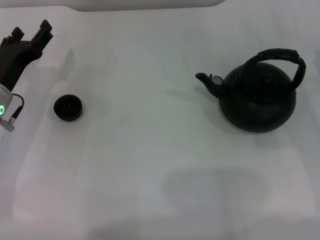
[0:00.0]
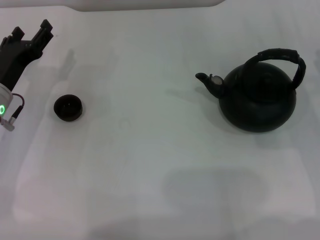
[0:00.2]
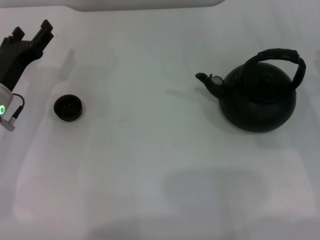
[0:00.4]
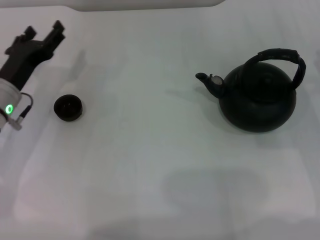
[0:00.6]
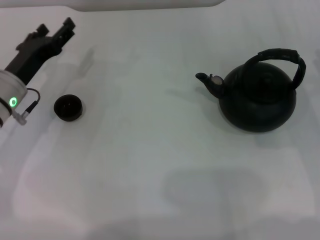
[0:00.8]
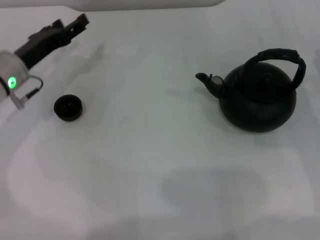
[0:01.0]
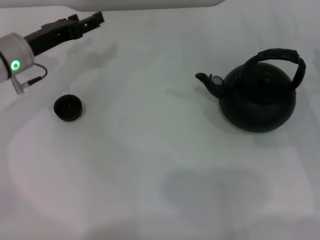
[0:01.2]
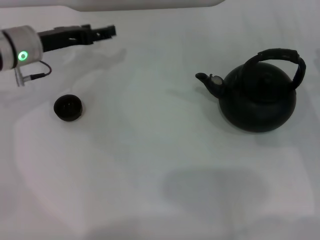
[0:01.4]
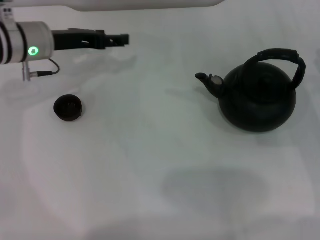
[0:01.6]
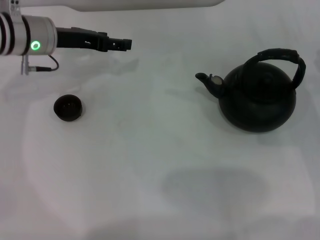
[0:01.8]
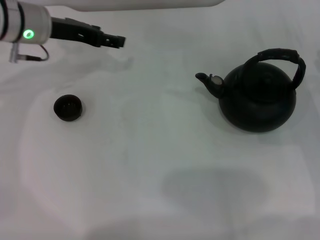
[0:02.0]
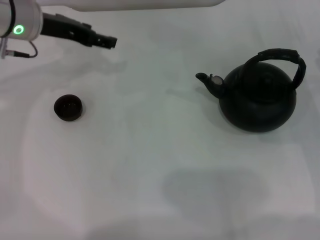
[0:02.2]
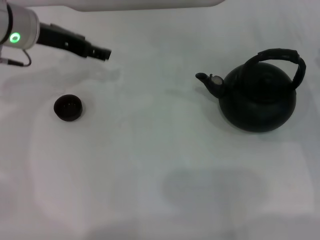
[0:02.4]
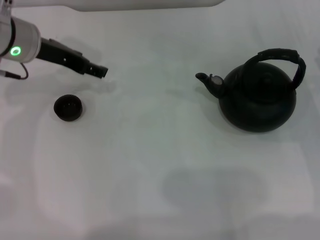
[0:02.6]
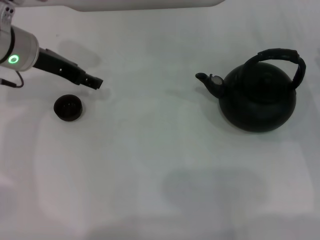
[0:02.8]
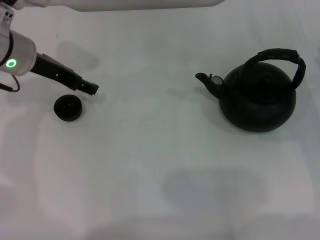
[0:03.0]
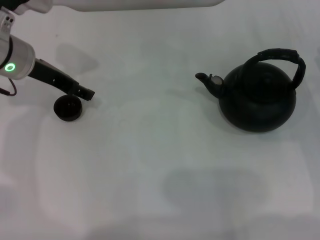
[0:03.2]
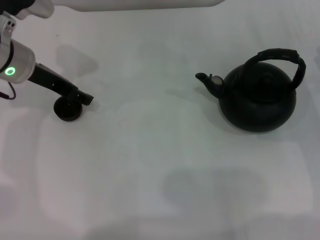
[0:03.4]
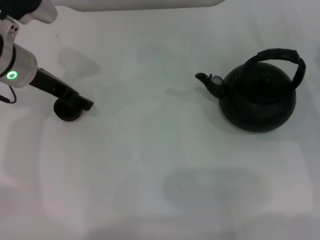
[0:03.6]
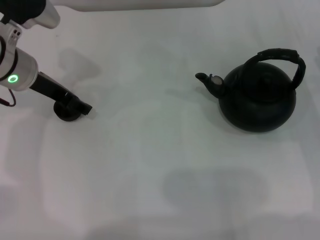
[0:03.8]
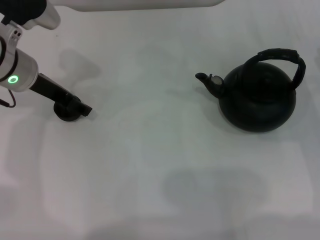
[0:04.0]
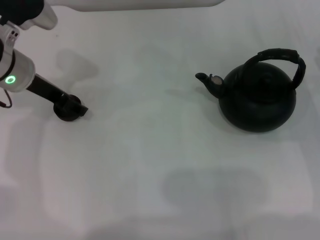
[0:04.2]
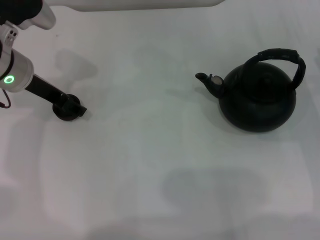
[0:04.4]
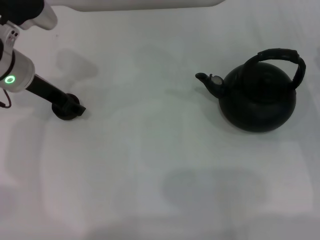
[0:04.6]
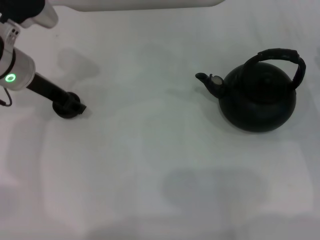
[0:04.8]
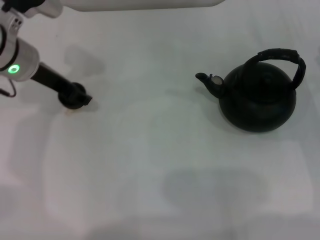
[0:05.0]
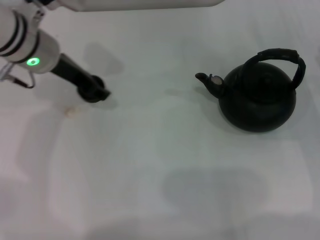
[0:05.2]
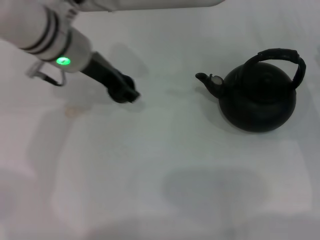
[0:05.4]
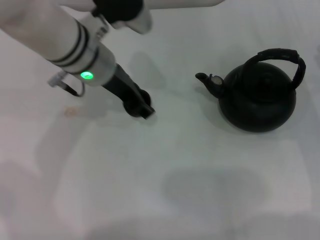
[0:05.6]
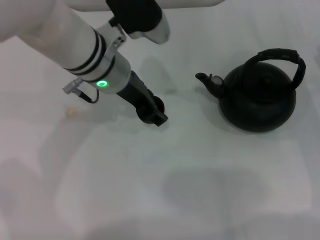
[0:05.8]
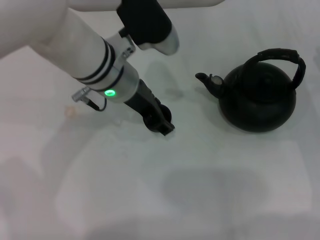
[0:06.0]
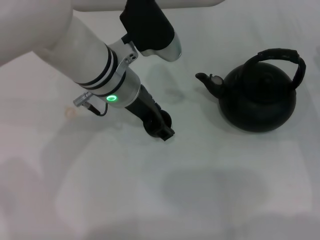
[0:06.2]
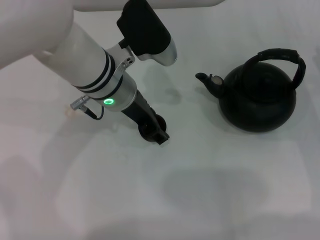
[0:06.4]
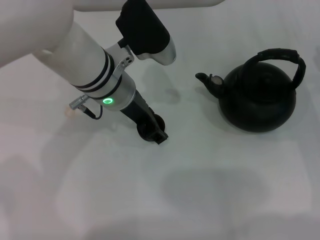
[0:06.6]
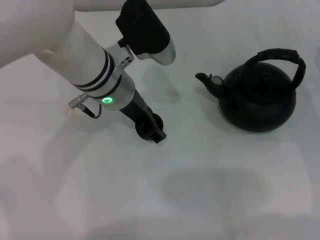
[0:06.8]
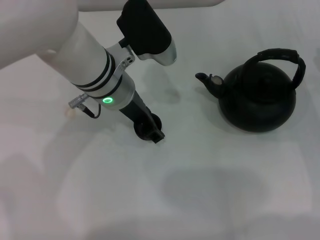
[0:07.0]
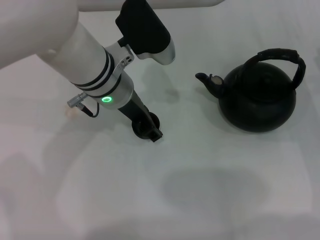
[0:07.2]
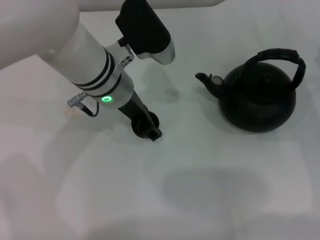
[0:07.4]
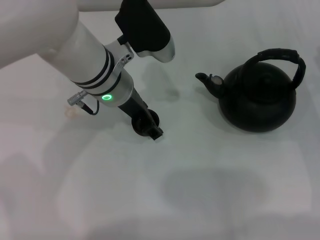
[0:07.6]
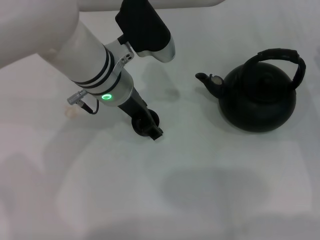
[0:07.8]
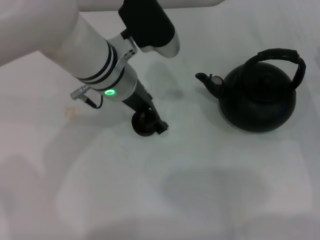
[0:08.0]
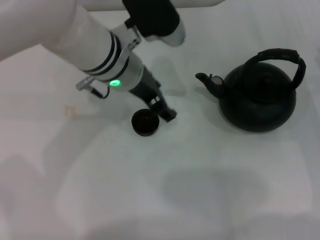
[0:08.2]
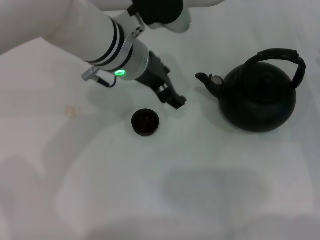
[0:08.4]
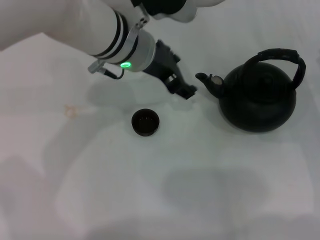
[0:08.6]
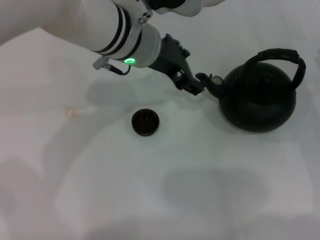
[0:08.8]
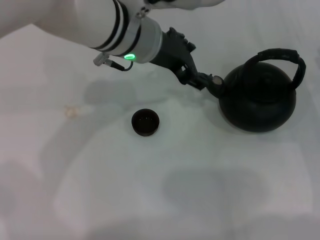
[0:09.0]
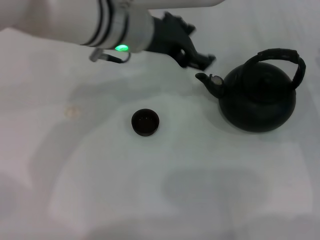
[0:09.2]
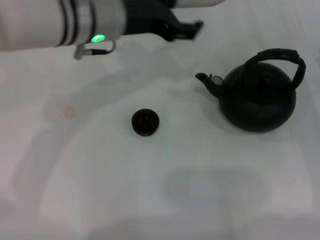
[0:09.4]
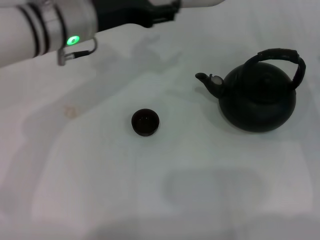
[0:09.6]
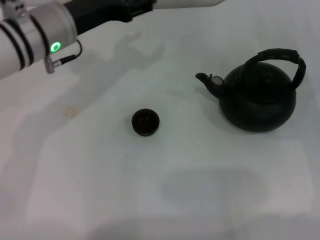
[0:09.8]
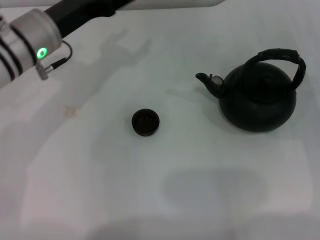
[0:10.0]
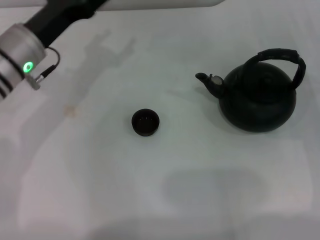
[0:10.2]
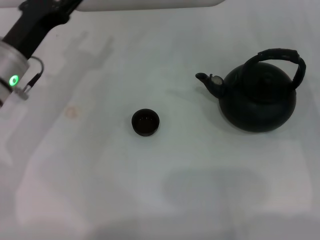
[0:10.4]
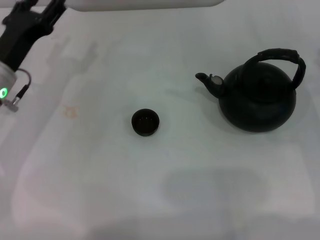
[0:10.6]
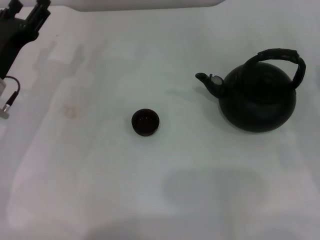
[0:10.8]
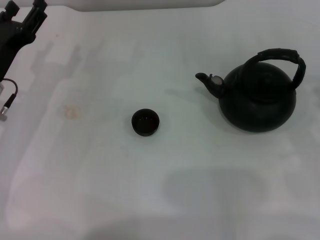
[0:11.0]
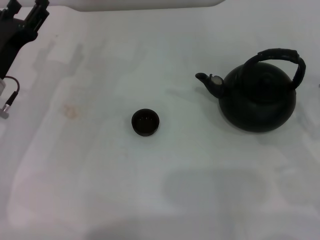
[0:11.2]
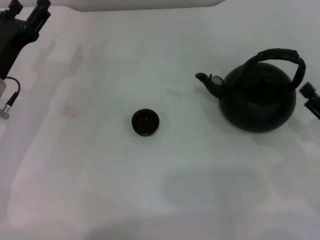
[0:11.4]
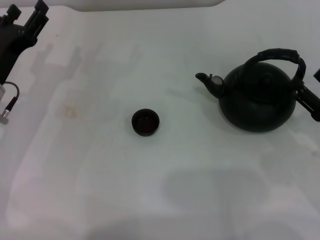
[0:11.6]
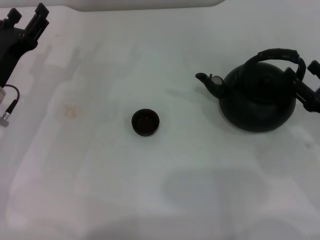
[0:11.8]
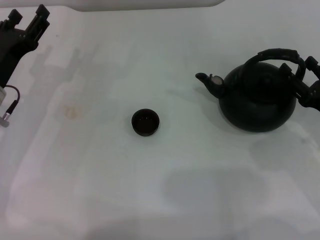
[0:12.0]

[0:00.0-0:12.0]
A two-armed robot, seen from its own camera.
Task of the whole recording: Grasp the handle of the teapot with one hand and pour tea into the teacup.
Step, 0:00.0 to 0:04.8: Pick up the teacup with the left gripper.
Step, 0:05.2 to 0:08.6: Place the teacup in the center of view with the left gripper.
0:00.0 to 0:01.6: The left gripper heads forward and upward, covering about 10 cm.
0:03.0 to 0:04.4: There are only small adjustments of the grippers.
0:04.4 to 0:06.0: The left gripper goes roughly 15 cm to the right, and closes.
0:06.0 to 0:07.6: The grippers move only a little.
0:07.6 to 0:09.0: The left gripper is displaced upward by some 5 cm, and opens.
0:09.0 to 0:10.4: The left gripper heads to the left and downward, covering roughly 20 cm.
0:10.4 to 0:12.0: The left gripper ends up about 5 cm from where it was.

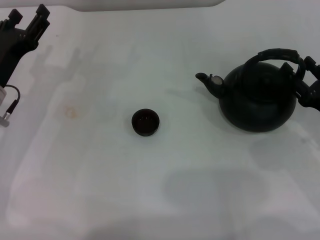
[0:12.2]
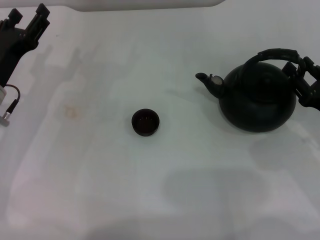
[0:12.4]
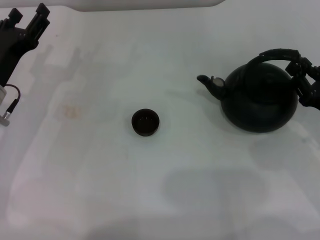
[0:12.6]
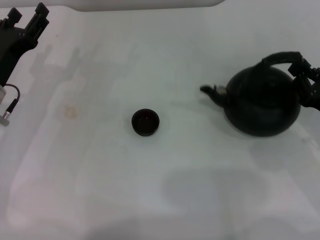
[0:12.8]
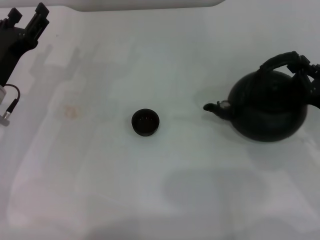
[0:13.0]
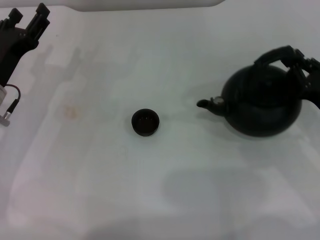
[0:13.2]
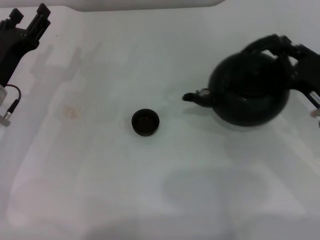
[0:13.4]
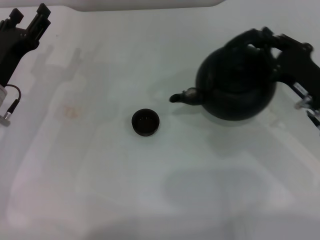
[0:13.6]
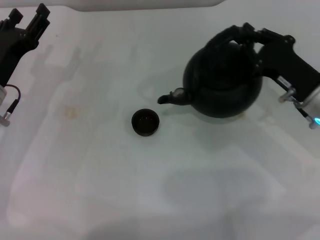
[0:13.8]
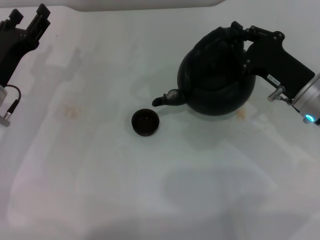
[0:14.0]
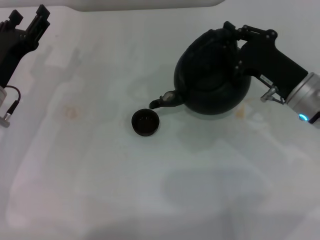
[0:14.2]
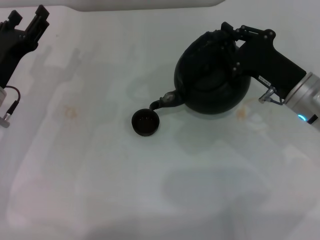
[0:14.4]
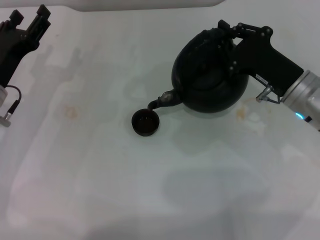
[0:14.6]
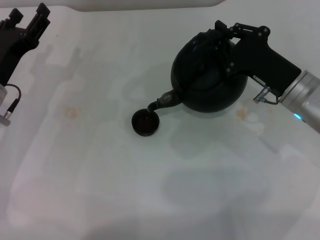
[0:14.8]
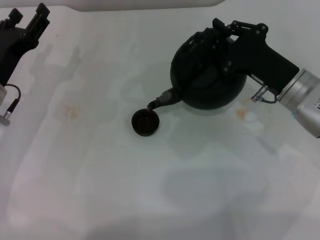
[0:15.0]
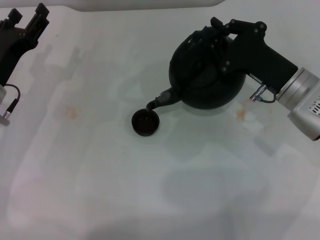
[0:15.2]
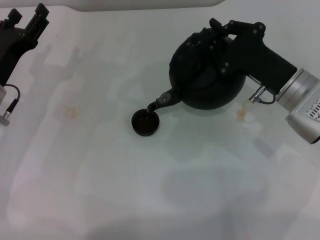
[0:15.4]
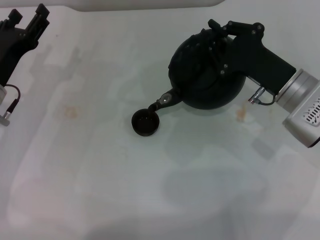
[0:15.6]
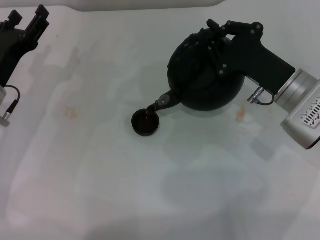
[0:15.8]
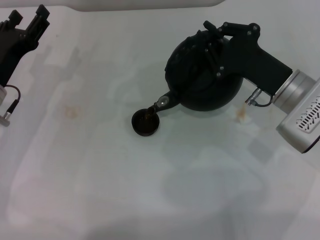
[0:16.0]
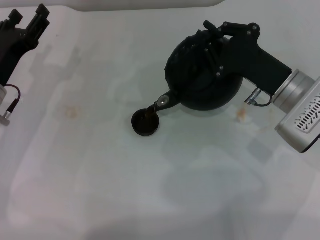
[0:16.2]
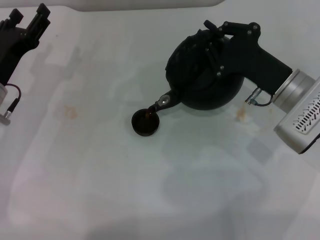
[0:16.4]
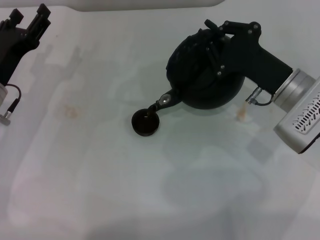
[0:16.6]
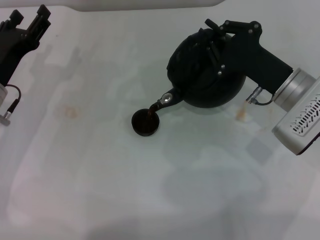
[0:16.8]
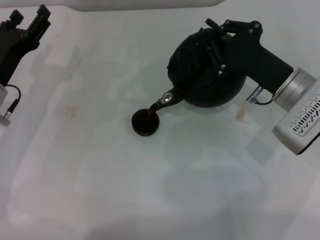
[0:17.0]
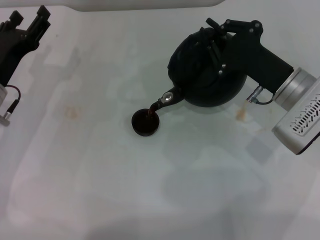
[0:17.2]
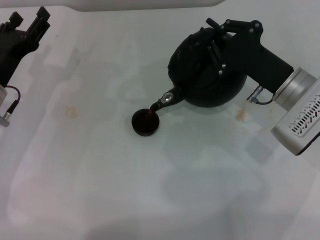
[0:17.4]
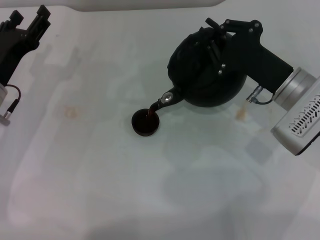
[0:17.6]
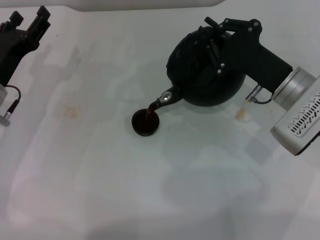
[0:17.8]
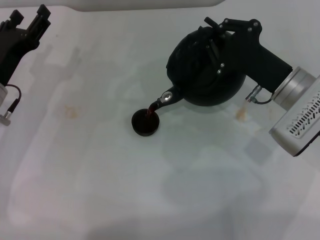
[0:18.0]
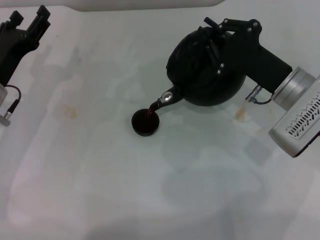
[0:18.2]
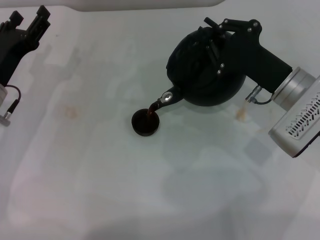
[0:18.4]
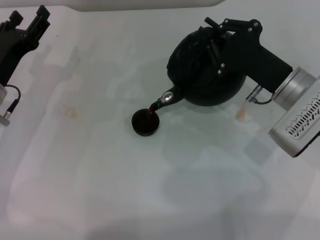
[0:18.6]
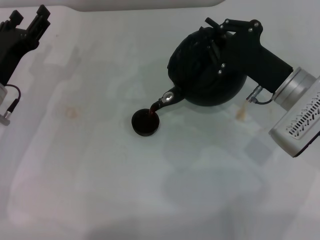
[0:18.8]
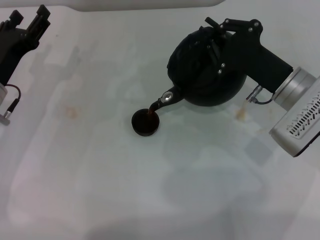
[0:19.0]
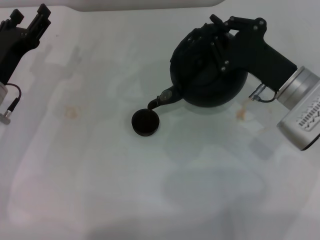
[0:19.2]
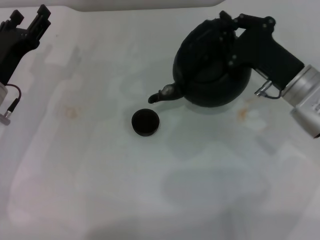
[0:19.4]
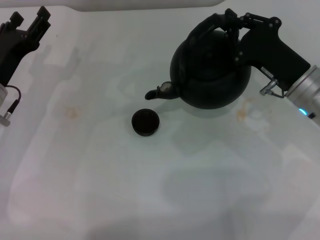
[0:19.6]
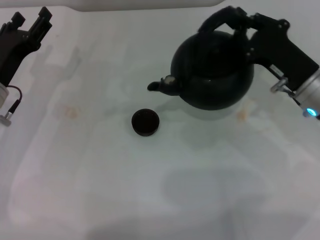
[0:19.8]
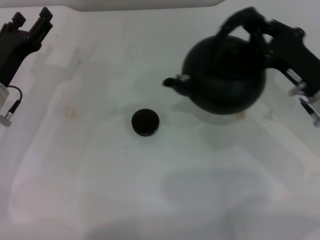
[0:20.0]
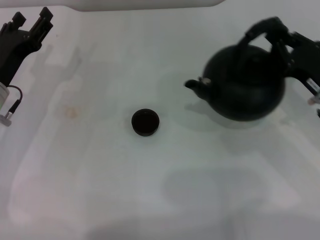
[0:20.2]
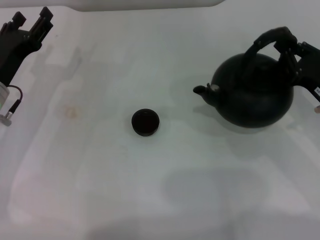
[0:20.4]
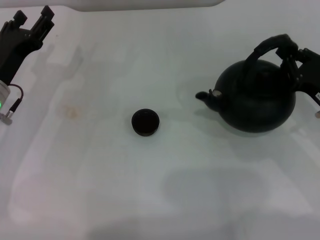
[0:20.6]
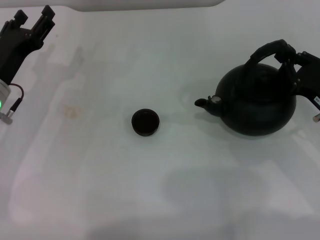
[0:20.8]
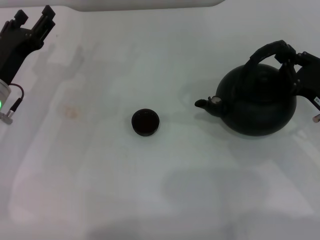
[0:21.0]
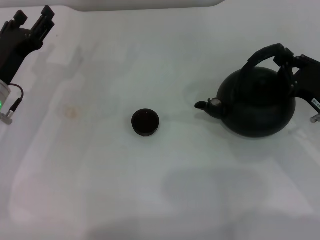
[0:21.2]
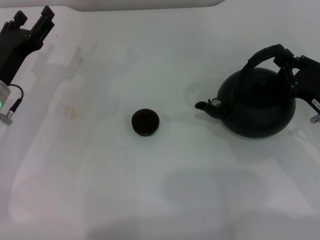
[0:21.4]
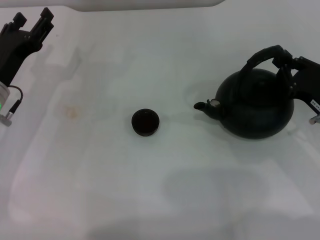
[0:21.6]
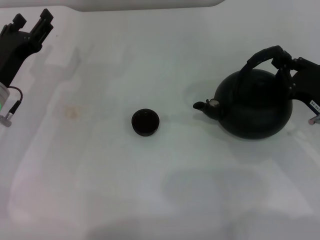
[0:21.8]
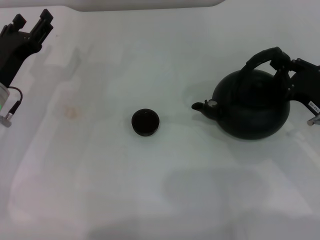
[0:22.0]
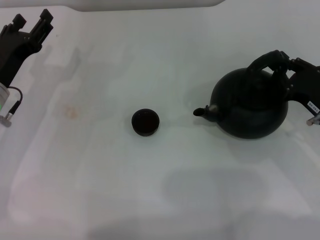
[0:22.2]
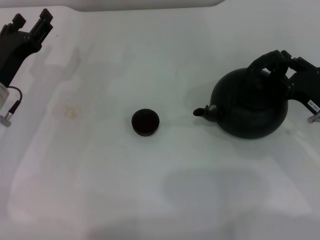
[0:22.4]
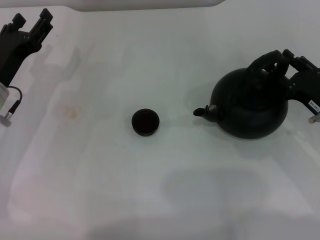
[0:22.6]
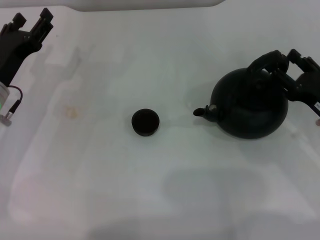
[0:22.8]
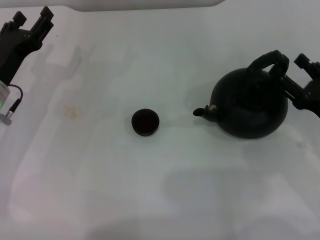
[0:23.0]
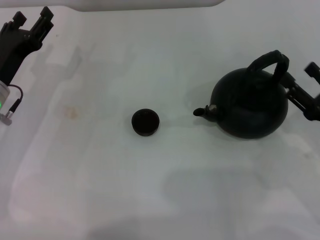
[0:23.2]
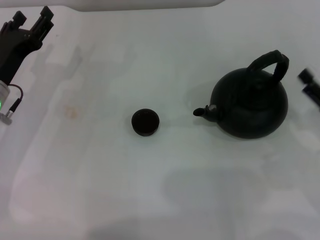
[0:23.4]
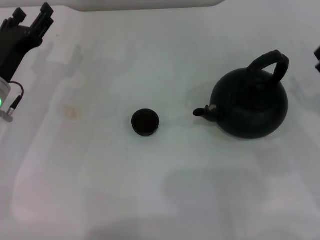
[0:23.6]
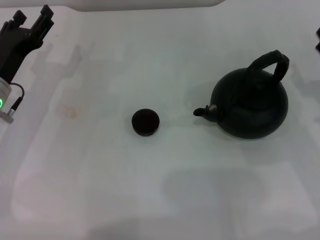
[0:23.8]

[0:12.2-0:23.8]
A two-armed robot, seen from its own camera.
Task of the whole recording: Grasp the handle of the teapot with one hand and pour tea into the teacup.
Step, 0:13.6 to 0:19.6: Pour tea into the teacup with the right gripper.
Step, 0:19.8 to 0:23.2: Put down the teapot with the right gripper.
0:12.2 to 0:13.6: The right gripper changes place by some 5 cm, and closes its fingers.
0:13.6 to 0:15.0: The right gripper ends up approximately 5 cm from where it was.
0:15.0 to 0:19.4: The grippers stay close to where they were, moving slightly.
0:19.4 to 0:21.0: The right gripper travels to the right by approximately 10 cm.
0:21.0 to 0:22.4: The grippers move only a little.
0:22.4 to 0:23.8: The right gripper opens its fingers.
